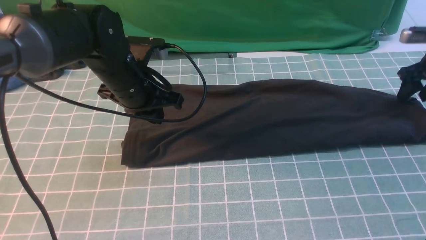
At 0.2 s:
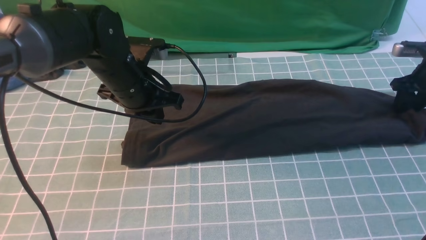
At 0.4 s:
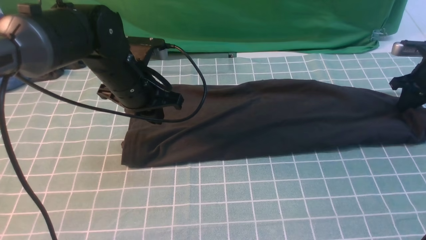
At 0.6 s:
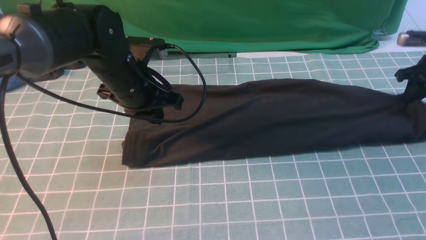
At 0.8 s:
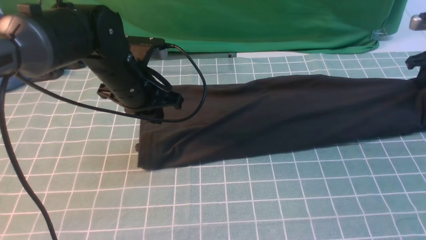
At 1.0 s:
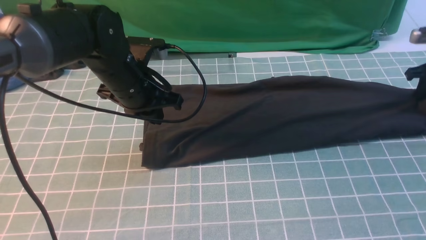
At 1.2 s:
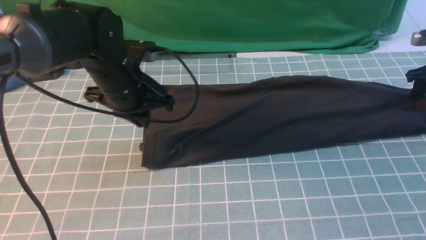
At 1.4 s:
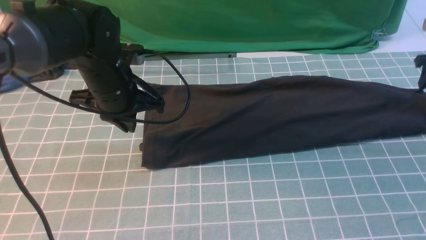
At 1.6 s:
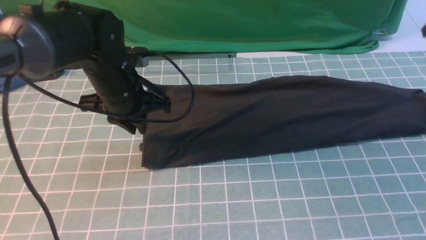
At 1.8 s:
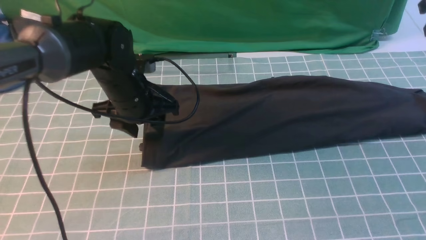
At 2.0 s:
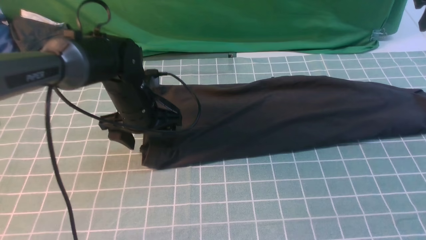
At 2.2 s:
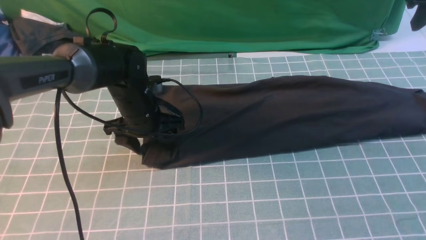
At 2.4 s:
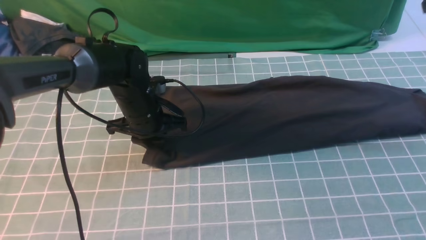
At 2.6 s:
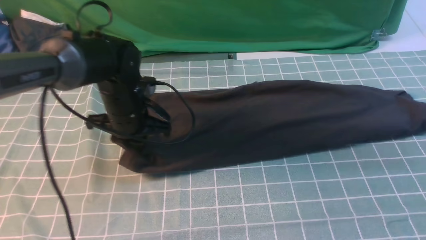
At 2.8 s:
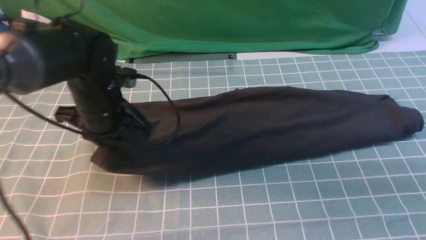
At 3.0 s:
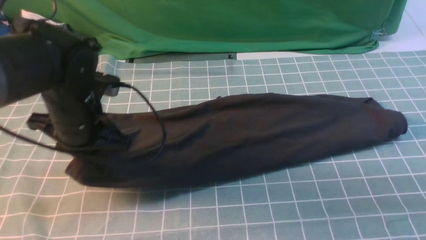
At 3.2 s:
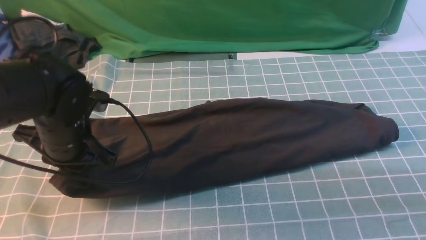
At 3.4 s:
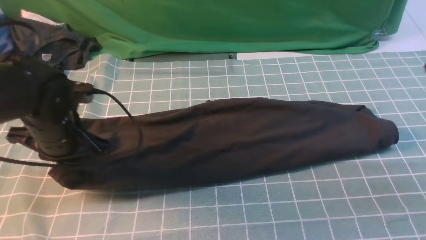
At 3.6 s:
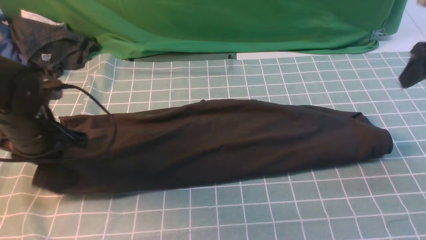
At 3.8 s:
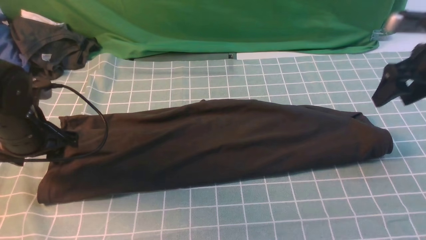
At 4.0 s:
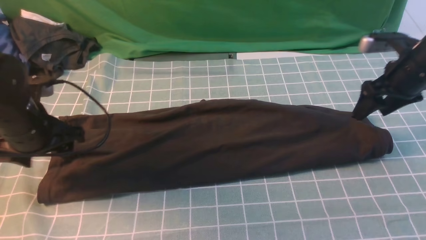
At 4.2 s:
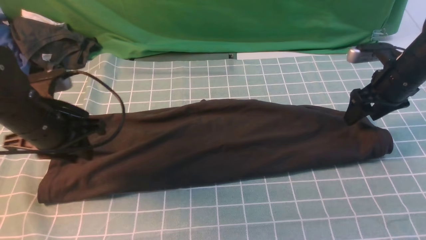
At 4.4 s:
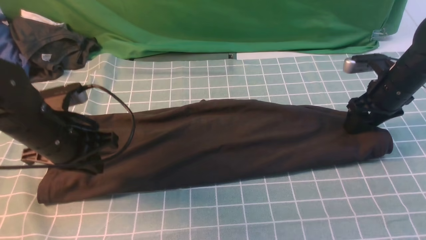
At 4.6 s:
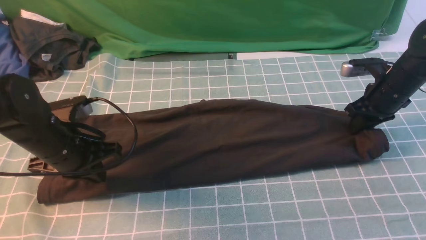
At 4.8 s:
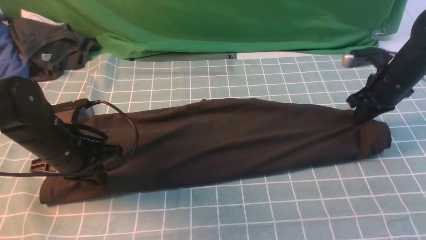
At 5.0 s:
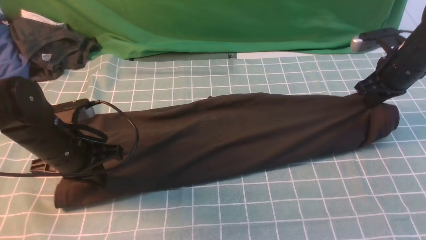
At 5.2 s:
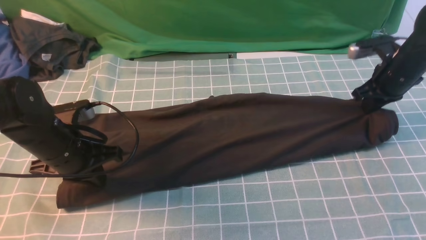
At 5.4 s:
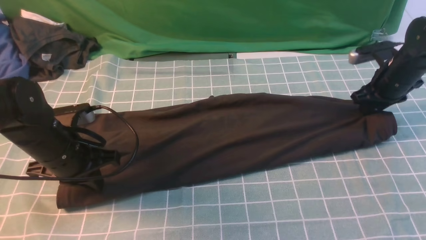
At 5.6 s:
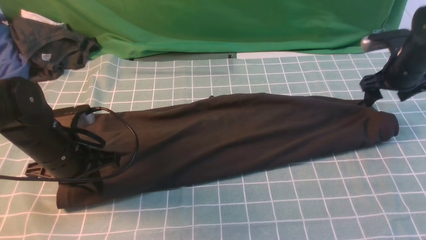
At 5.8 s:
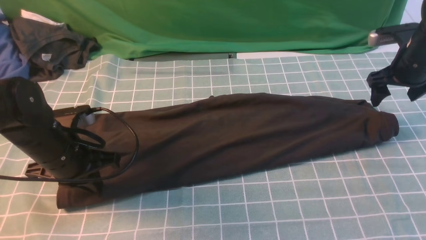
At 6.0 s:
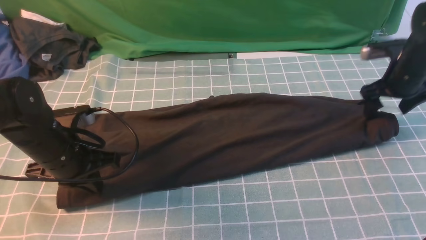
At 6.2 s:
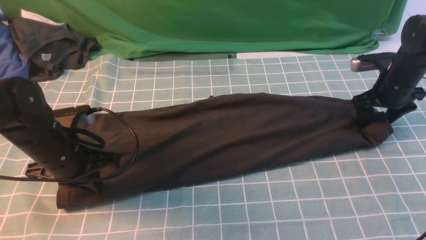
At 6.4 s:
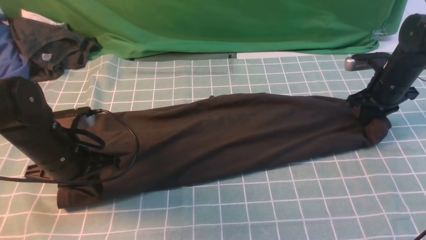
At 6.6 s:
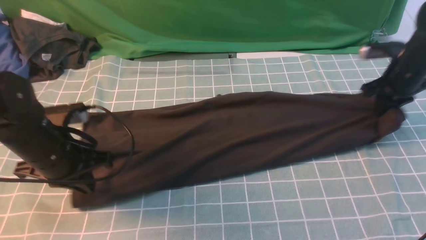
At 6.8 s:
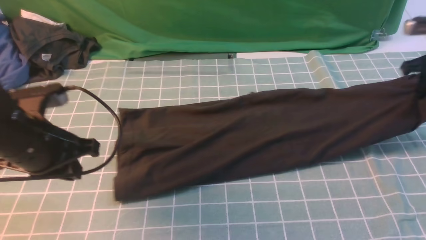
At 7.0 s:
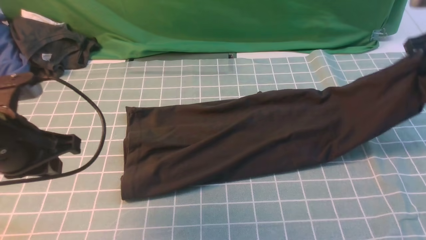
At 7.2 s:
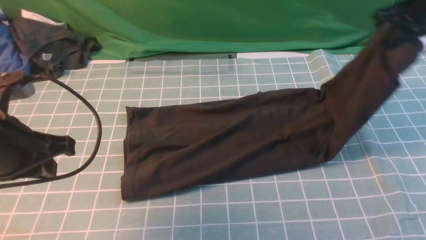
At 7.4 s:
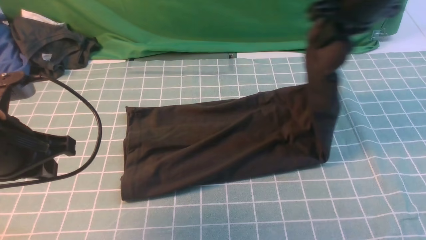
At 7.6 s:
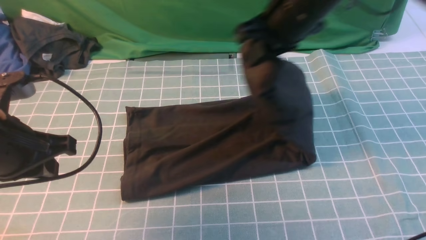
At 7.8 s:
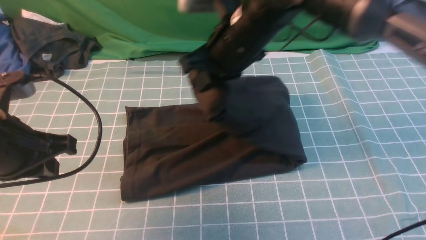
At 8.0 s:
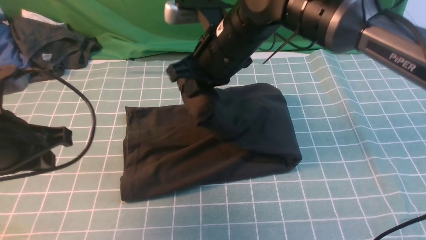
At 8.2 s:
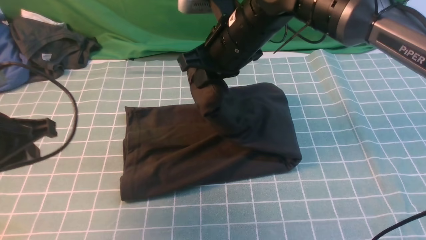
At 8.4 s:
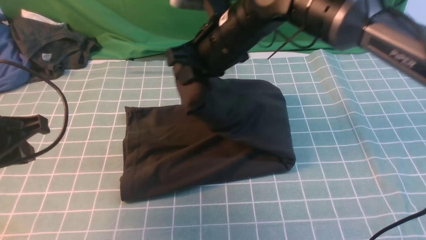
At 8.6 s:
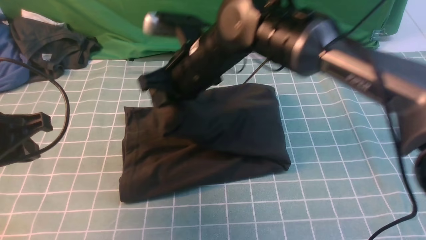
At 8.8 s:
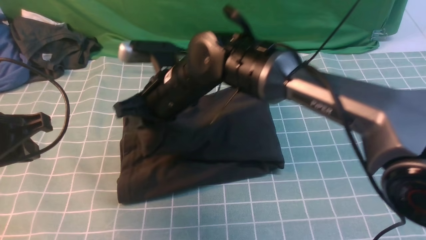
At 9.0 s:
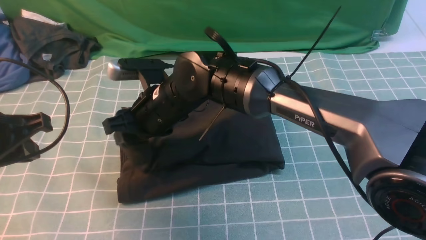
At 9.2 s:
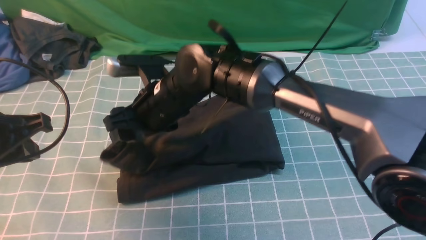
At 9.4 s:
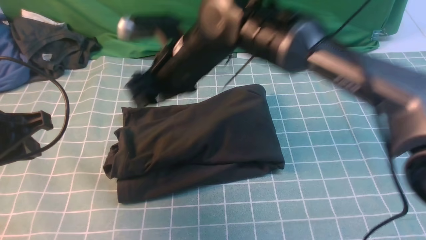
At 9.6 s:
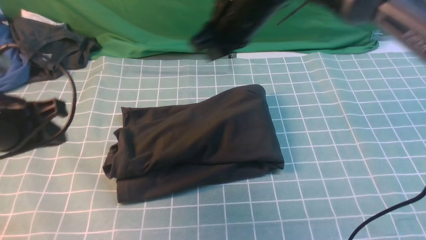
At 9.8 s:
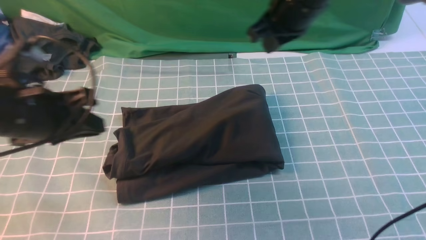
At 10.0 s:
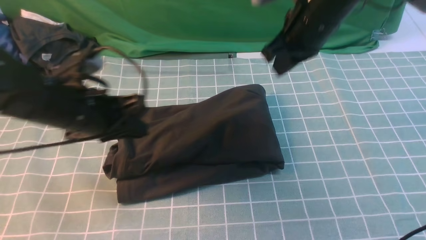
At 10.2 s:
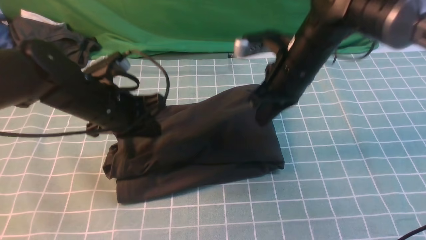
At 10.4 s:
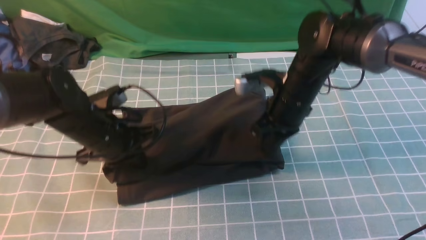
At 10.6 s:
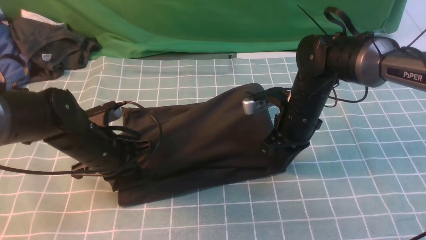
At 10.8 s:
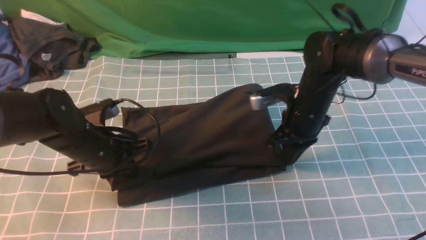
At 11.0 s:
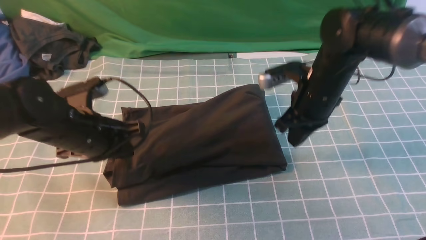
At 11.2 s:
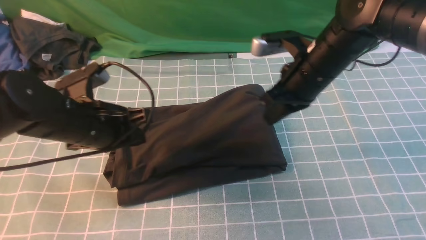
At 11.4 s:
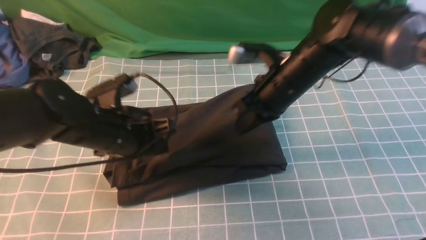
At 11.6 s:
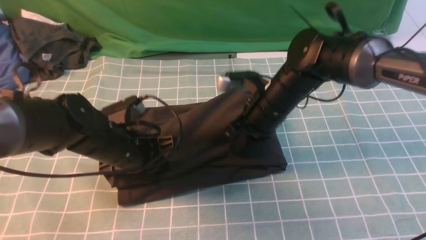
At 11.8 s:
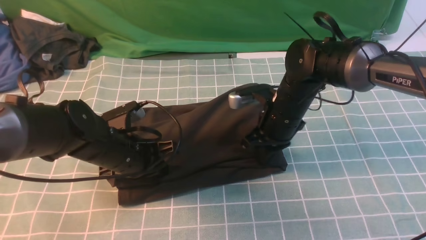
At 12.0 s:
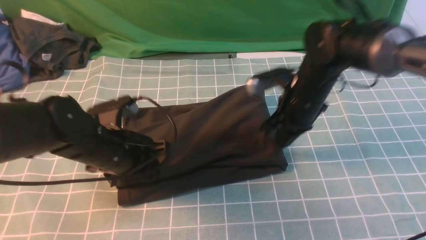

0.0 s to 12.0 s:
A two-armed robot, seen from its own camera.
Step, 0.0 to 6.4 s: use the right arm to clamp the right edge of the fabric.
Step, 6.8 to 9.4 s: use the right arm to drag the right edge of the fabric to the left and folds it over the left edge.
0.0 to 1.6 s: The right gripper is displaced upward by some 10 cm, and closes and opens again. Meanwhile the left gripper opens up.
1.6 to 3.0 s: The right gripper shifts about 20 cm backward, upward and to the left, while the left gripper is displaced backward by approximately 5 cm, and closes its fingers.
3.0 to 4.4 s: The left gripper opens, then closes again. Meanwhile the right gripper goes some 25 cm downward.
4.4 to 6.0 s: The right gripper closes, then reopens.
6.0 to 7.6 s: The right gripper heads to the left and upward, covering about 30 cm, and closes up. Meanwhile the left gripper goes about 15 cm upward and backward.
7.6 to 9.0 s: The right gripper is displaced to the left and downward by roughly 20 cm, and opens its fingers.
9.0 to 10.4 s: The left gripper travels downward, forward and to the right by some 15 cm. The right gripper heads to the right, covering roughly 20 cm, and closes.
10.4 to 12.0 s: The grippers make only small movements.

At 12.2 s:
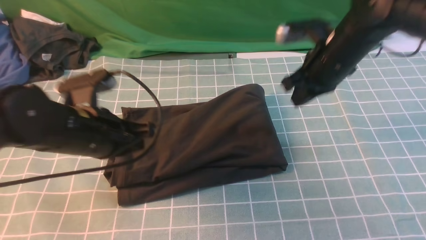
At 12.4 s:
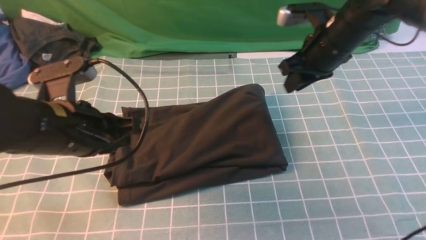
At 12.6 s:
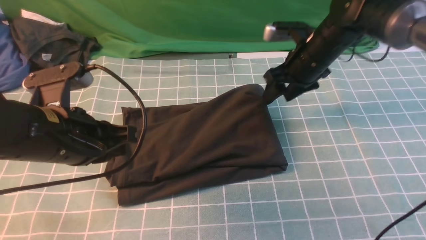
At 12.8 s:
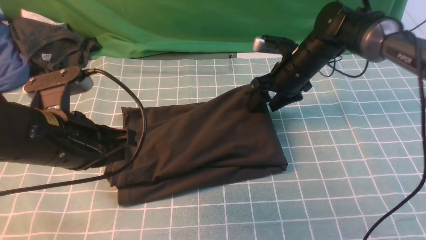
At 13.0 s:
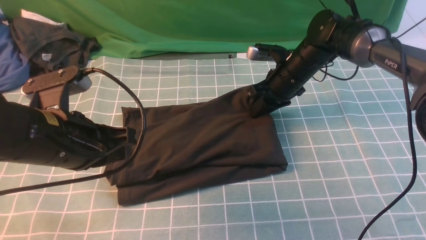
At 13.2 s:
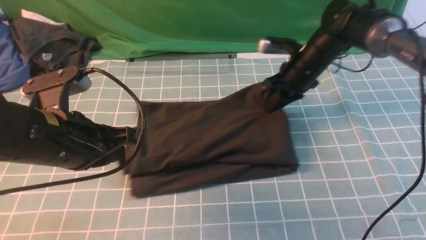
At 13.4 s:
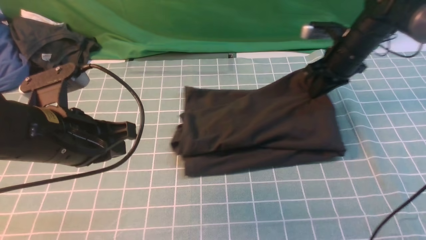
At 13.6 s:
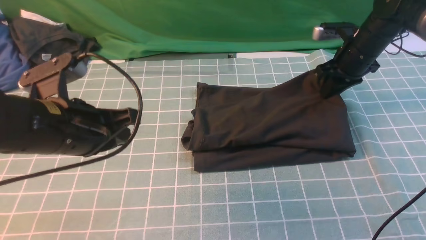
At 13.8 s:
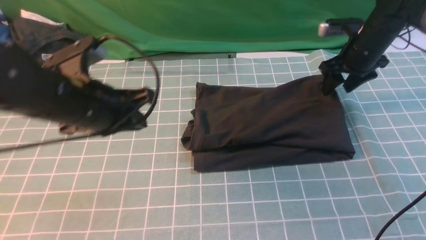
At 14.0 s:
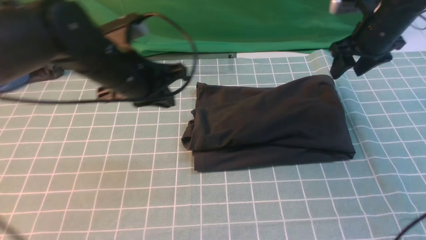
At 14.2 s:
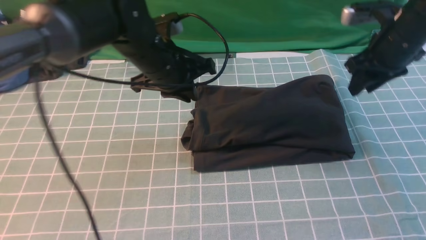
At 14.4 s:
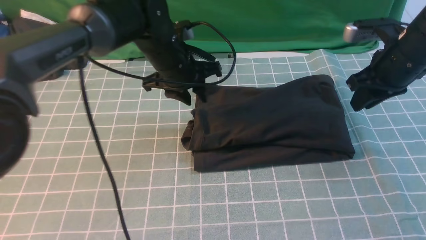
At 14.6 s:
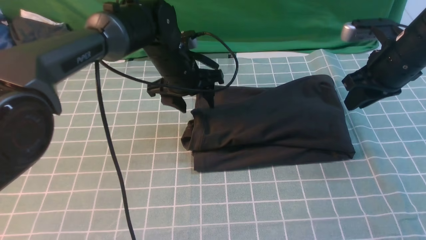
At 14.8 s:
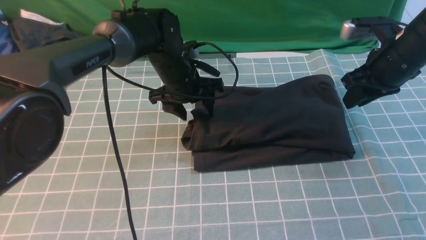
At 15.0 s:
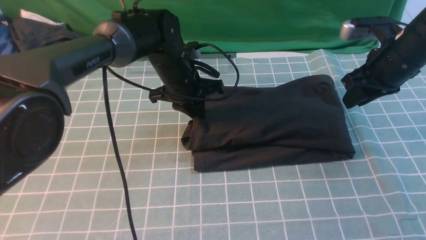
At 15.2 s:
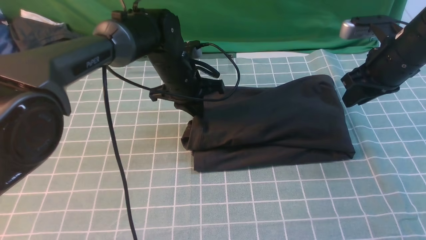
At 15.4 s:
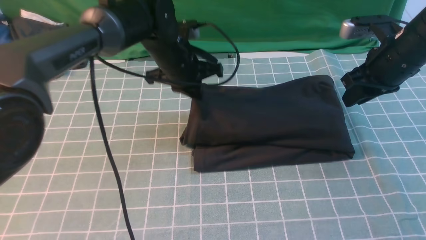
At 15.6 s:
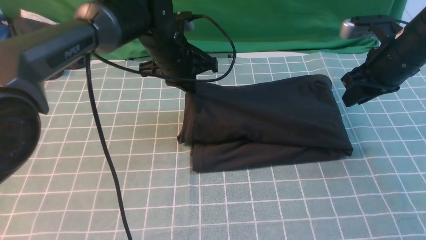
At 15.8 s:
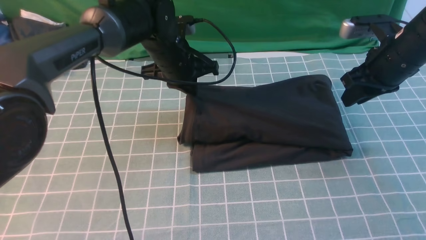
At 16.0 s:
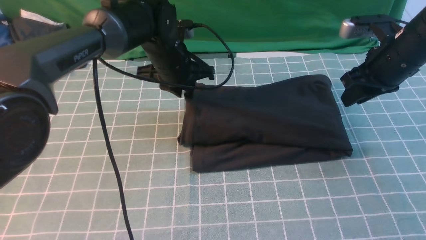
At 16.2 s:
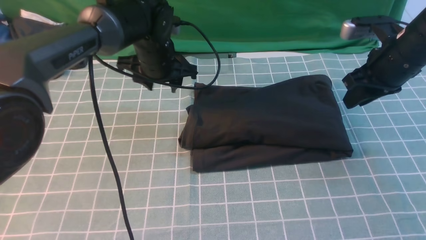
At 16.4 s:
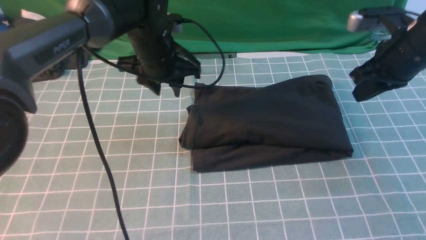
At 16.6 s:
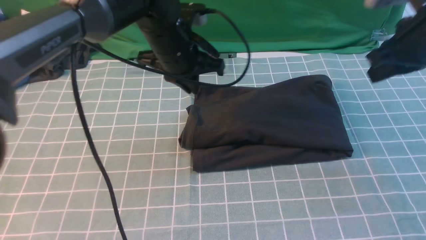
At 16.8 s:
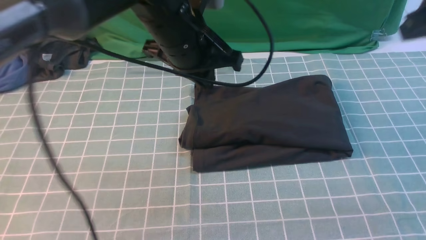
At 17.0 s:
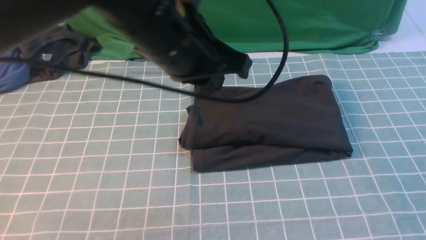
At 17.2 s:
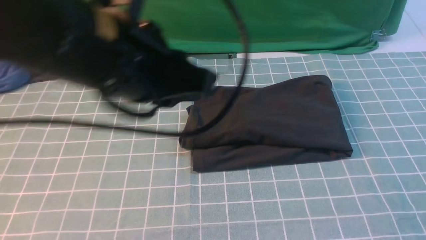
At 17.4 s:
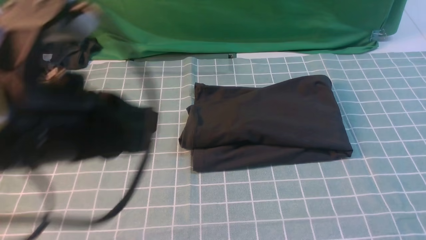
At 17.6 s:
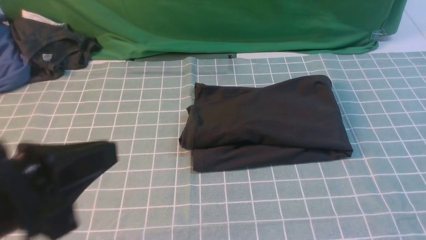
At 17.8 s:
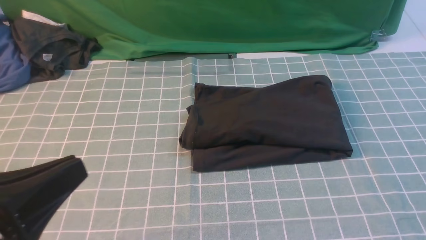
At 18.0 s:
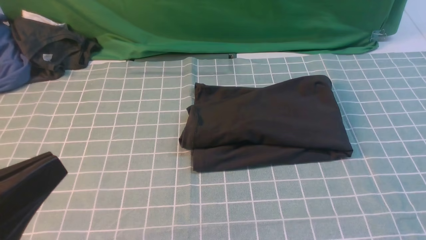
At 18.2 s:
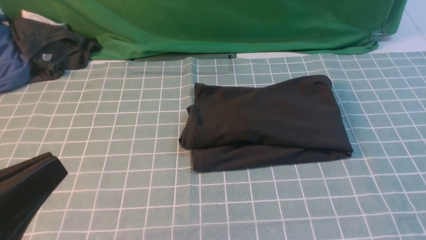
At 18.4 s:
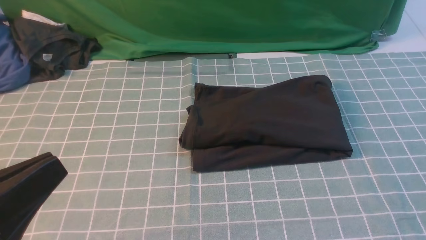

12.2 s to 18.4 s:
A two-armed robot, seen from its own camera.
12.2 to 13.8 s: The right gripper moves to the right and forward, approximately 15 cm, and opens its fingers; the left gripper moves roughly 5 cm.
13.8 to 15.4 s: The right gripper travels backward by some 10 cm. Meanwhile the left gripper moves forward, to the right and downward, roughly 20 cm, and opens, then closes again.
15.4 to 16.8 s: The two grippers go about 20 cm upward and backward. The right gripper closes, while the left gripper opens, then closes again.
16.8 to 18.4 s: The right gripper is displaced backward by approximately 30 cm. The left gripper travels backward and to the left by approximately 30 cm.
